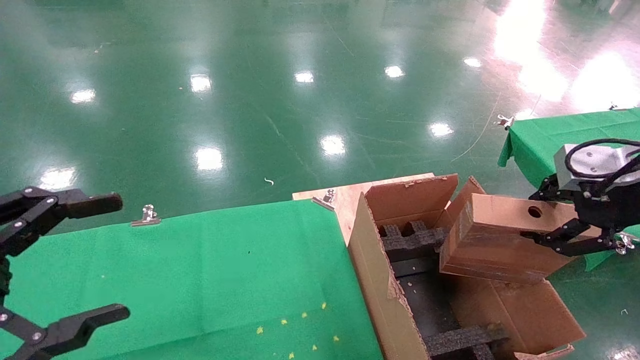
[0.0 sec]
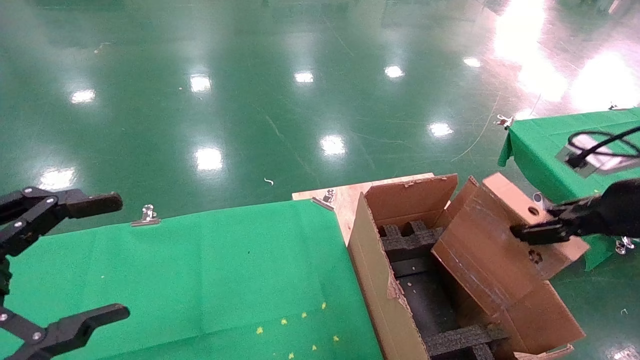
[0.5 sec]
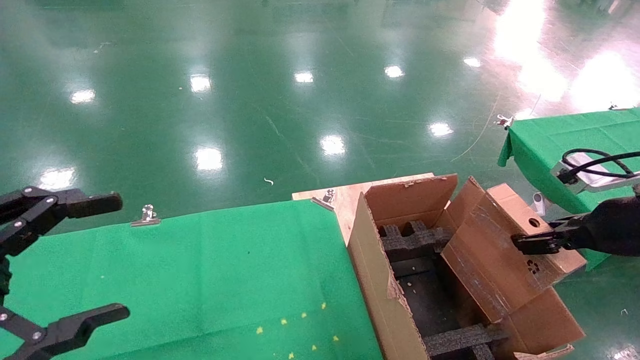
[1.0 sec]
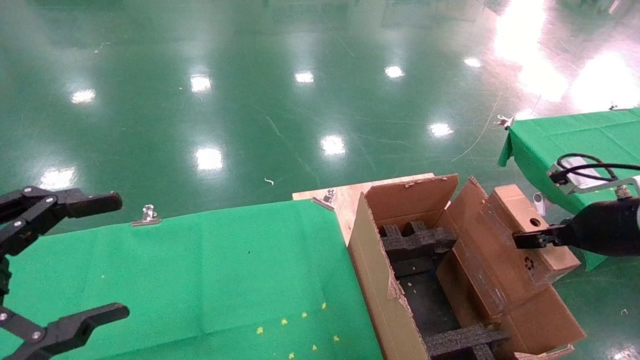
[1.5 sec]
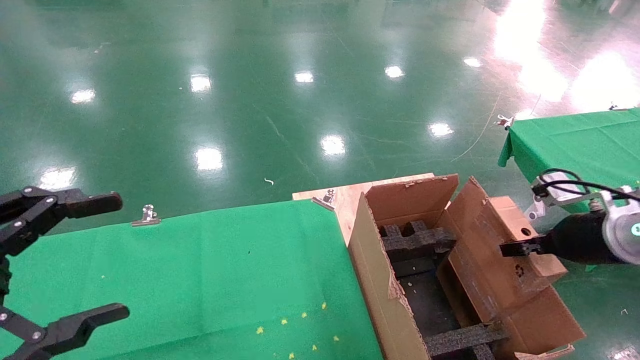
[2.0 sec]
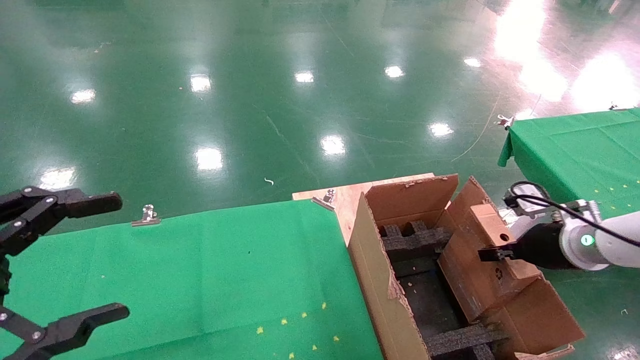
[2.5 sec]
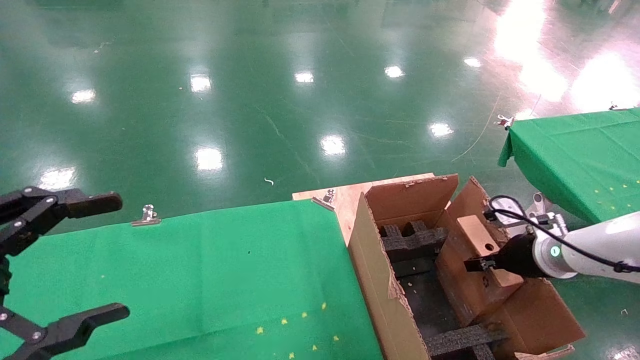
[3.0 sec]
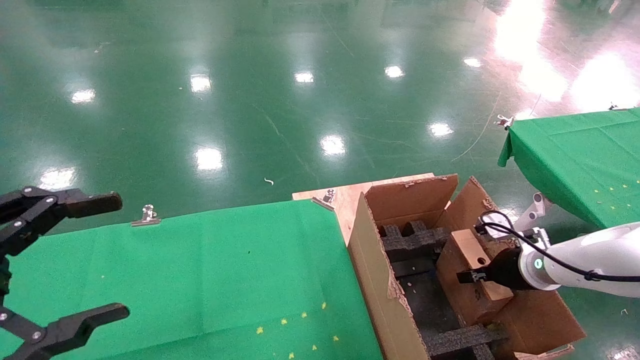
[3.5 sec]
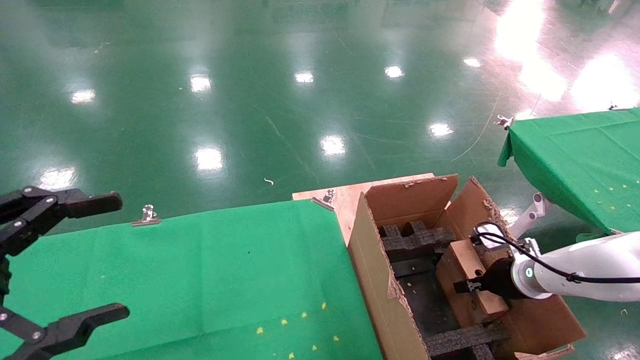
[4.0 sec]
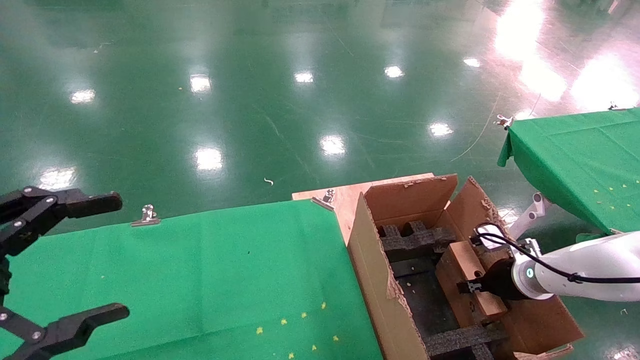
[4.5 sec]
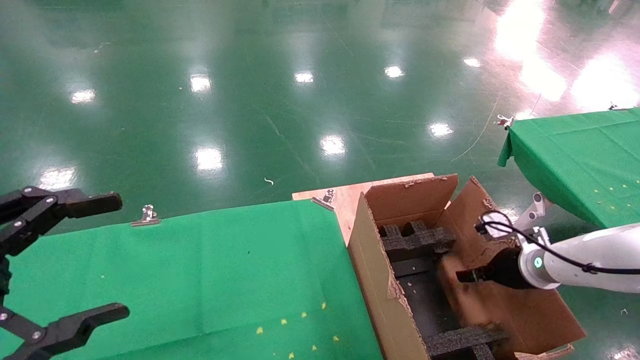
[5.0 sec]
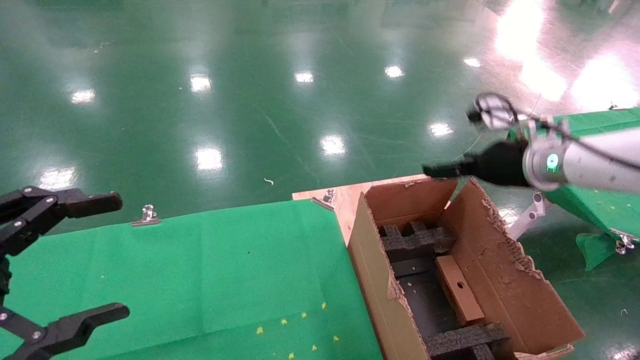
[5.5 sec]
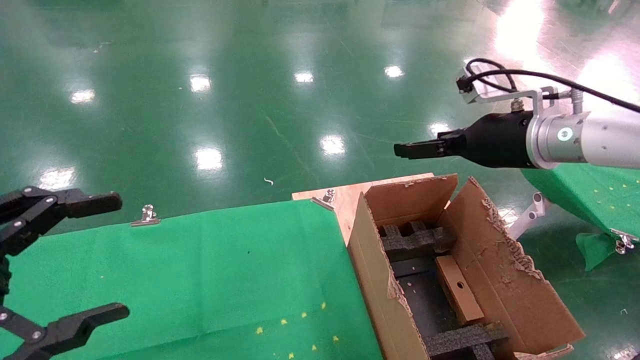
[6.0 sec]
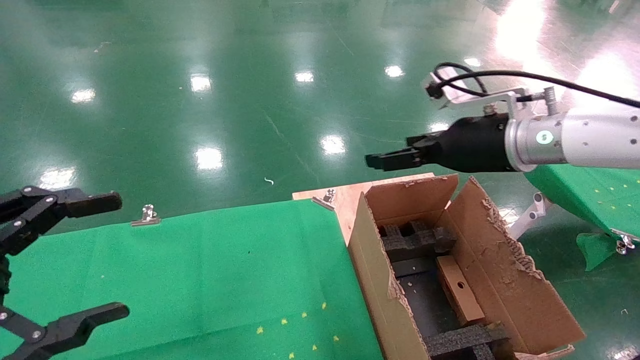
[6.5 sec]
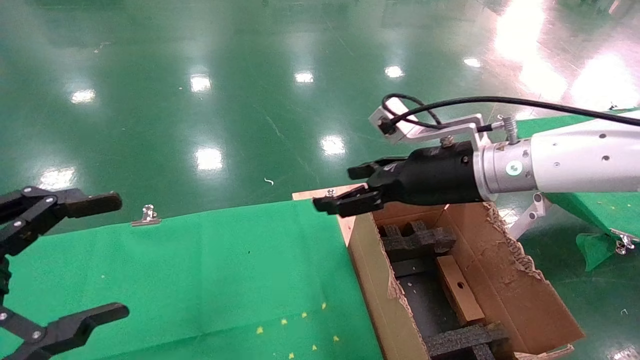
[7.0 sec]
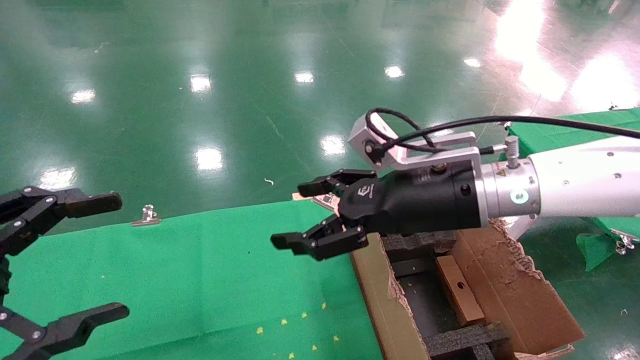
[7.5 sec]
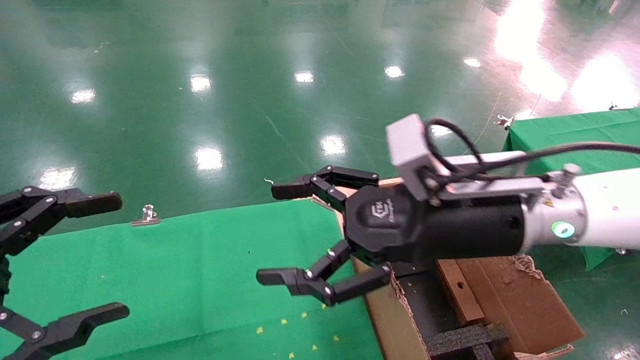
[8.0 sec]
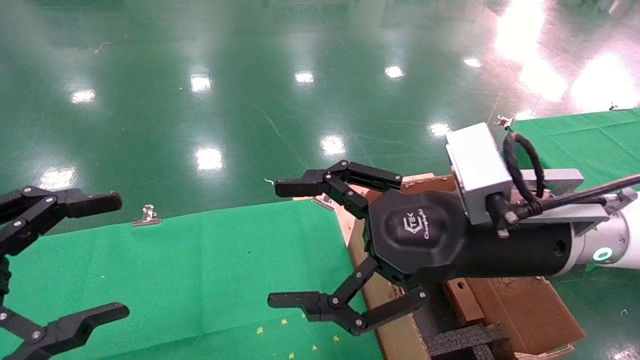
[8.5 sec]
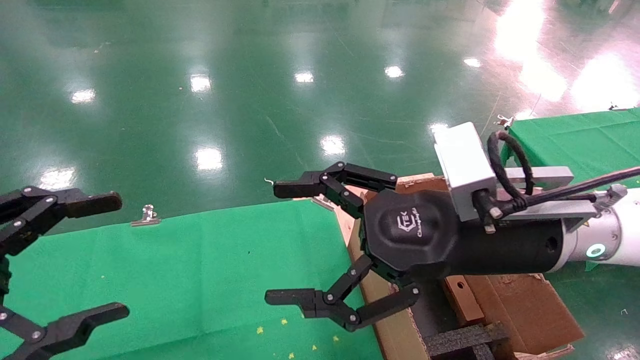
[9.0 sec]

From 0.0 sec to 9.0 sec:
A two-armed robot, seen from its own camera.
Task of the whole recording: using a robotic arm to pick up a cardboard box and palace it the carton.
Step, from 0.0 sec to 4.5 sec: Place the mouse and the power cord paper box into the container.
From 0.0 sec to 2.0 sec: The right gripper moves downward and forward, roughly 15 cm.
From 2.0 sec to 4.5 sec: The right gripper moves downward and forward, roughly 15 cm.
From 4.5 sec to 7.0 sec: The right gripper travels upward and to the left by about 30 cm, and opens.
From 7.0 sec to 9.0 sec: The right gripper moves backward, approximately 10 cm.
